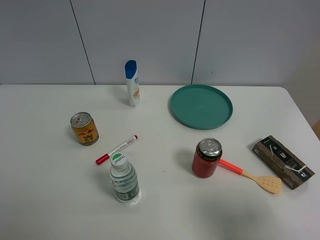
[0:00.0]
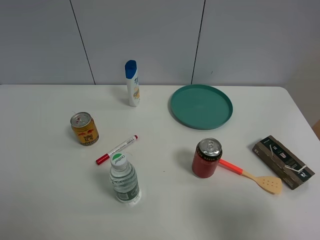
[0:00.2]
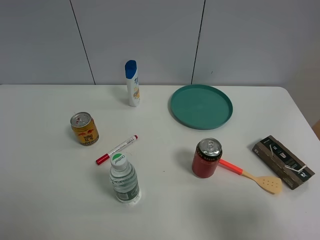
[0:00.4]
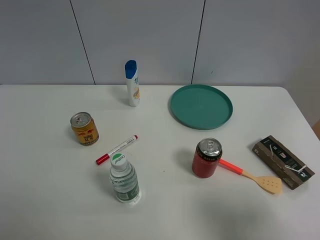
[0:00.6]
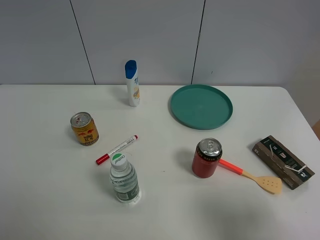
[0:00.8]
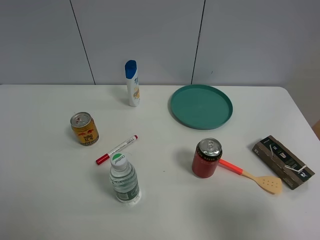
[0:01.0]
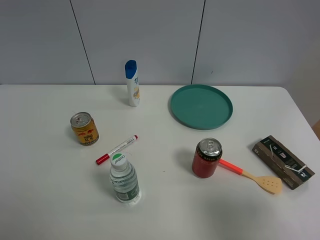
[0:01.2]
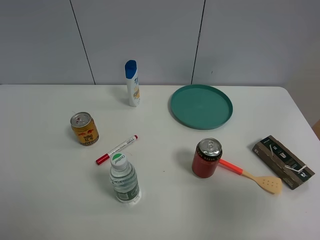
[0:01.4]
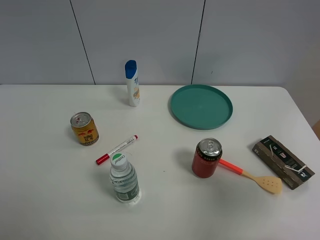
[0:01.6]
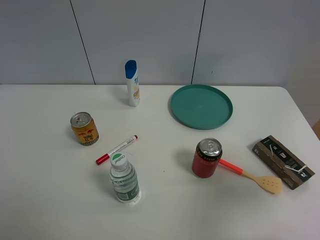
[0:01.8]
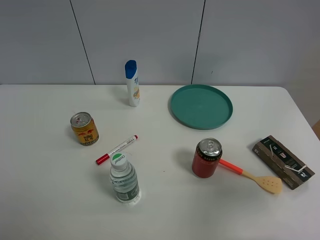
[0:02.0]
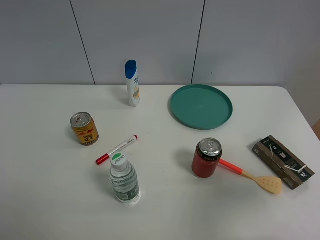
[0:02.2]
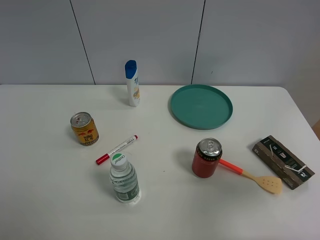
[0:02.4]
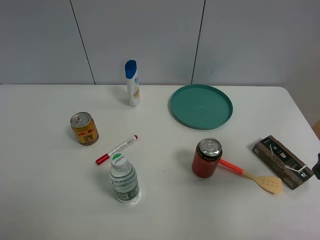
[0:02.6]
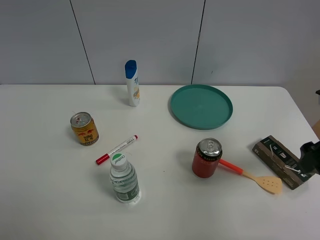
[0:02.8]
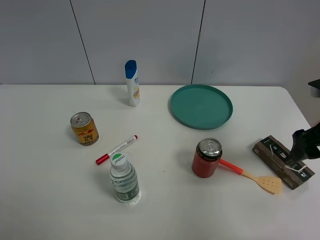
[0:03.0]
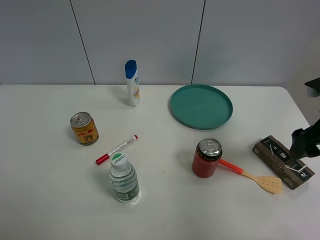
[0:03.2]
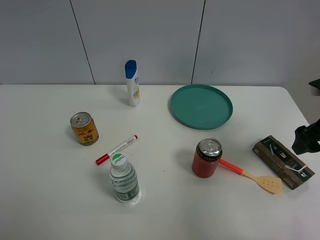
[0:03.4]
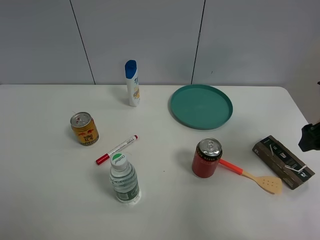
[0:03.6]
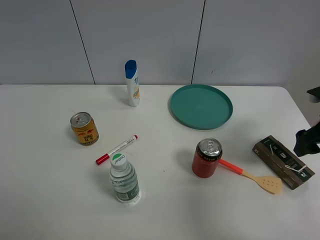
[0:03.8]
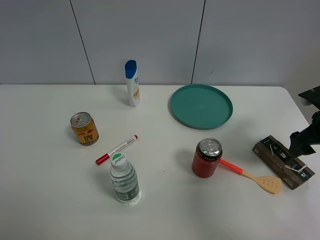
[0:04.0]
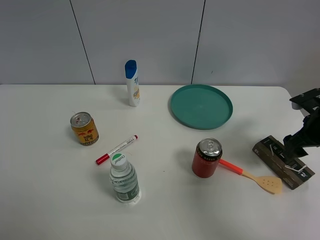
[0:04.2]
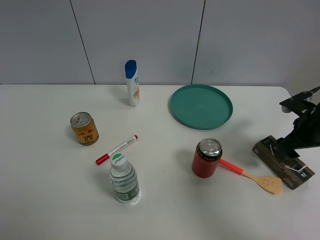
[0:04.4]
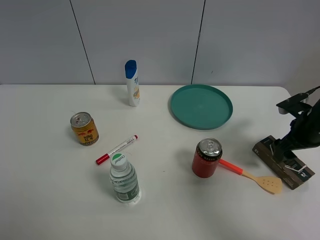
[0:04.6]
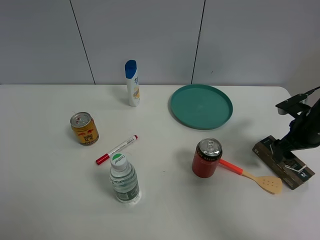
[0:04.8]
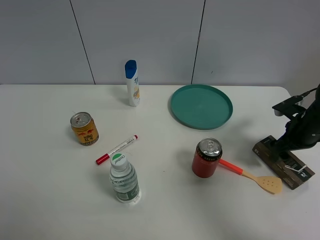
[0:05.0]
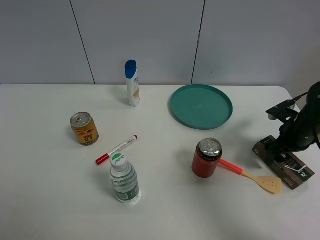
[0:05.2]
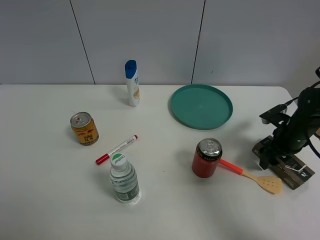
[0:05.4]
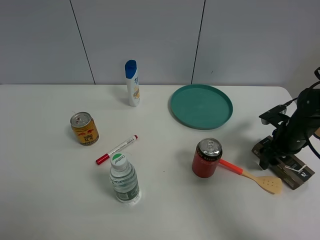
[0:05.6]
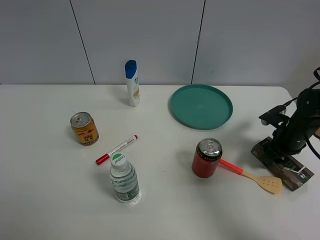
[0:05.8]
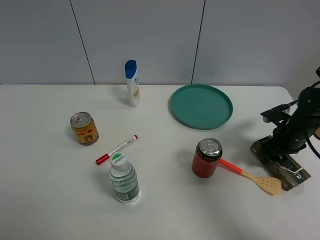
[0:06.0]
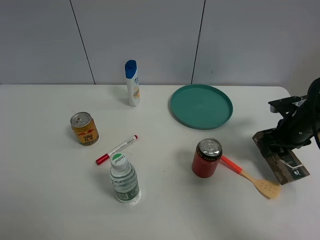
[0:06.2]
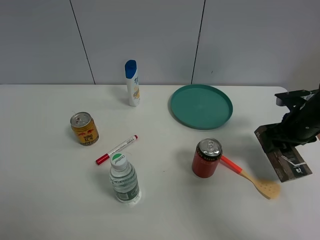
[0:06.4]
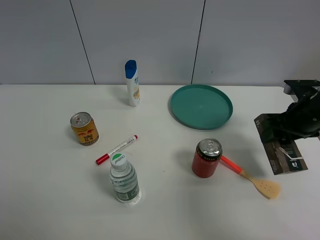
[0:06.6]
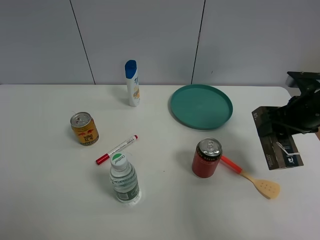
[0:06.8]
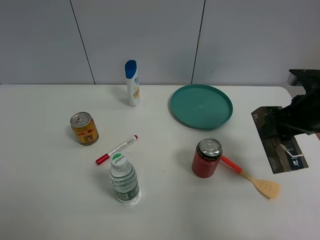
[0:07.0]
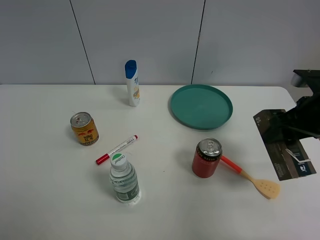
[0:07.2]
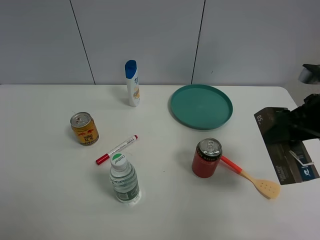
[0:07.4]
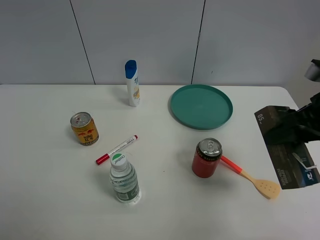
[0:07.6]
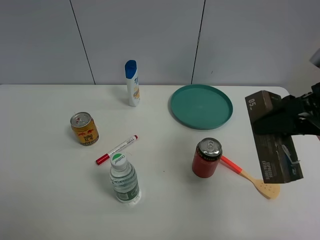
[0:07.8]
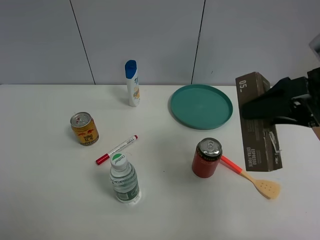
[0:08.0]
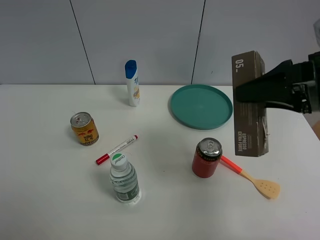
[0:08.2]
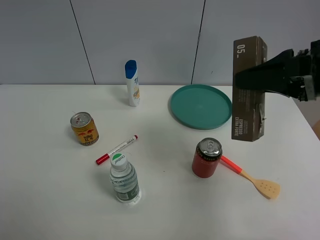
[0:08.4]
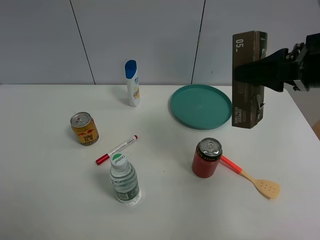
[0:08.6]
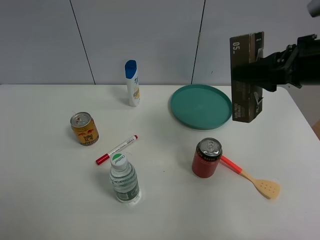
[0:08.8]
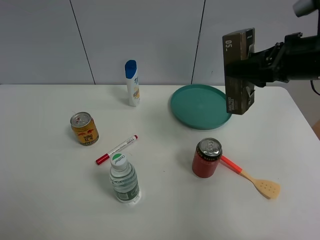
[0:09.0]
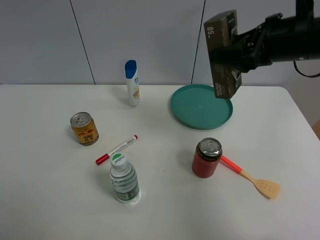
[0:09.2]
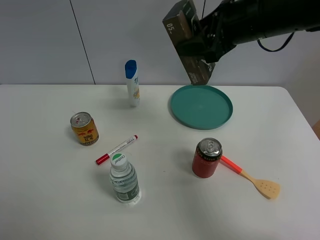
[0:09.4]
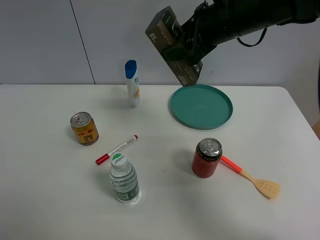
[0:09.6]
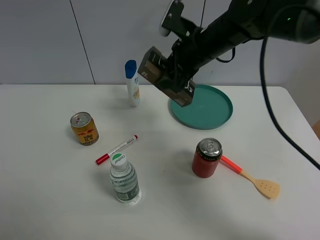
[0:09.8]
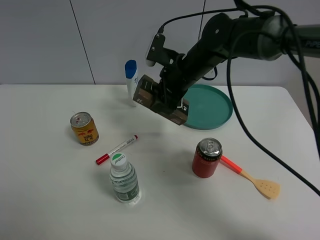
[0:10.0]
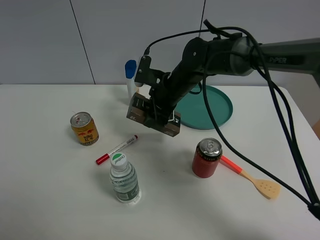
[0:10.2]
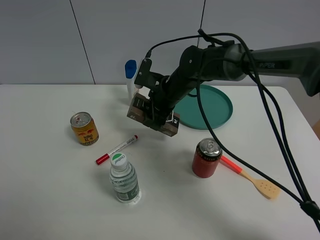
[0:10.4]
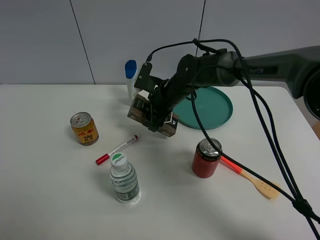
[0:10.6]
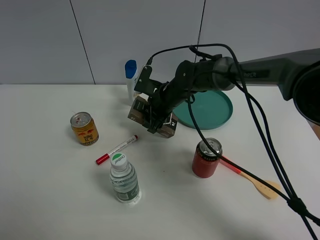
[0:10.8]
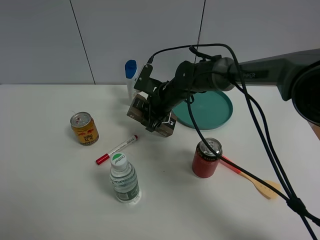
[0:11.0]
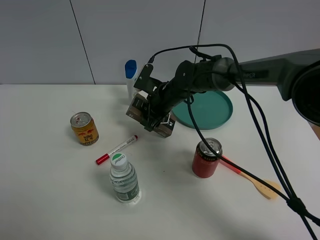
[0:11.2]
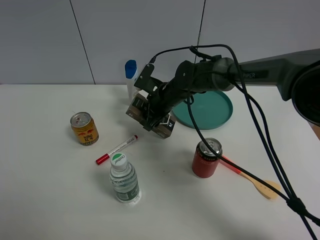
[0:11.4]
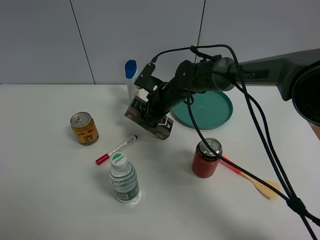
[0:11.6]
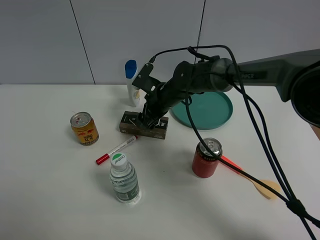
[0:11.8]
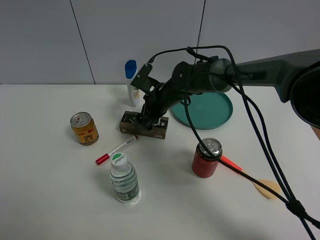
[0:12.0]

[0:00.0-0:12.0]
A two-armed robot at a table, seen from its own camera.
Task of the whole recording: the gripper move the object.
Step, 0:00.0 to 0:05.8: Grasp the brown box with the right gripper.
Step, 0:06.0 to 0:11.8: Place the brown box on the table with the right gripper.
0:00.0 to 0:01.6: The right gripper moves forward and upward, approximately 10 cm.
0:01.6 to 0:03.0: The right gripper moves forward and downward, approximately 15 cm.
0:03.0 to 0:04.4: The right gripper shifts some 10 cm downward and forward.
0:04.4 to 0:06.0: The right gripper ends up about 5 cm from where it was, and closes up.
0:06.0 to 0:07.6: The right gripper moves upward and backward, approximately 20 cm.
0:07.6 to 0:09.0: The right gripper is displaced forward by roughly 10 cm.
0:09.0 to 0:10.4: The right gripper shifts some 30 cm to the left, downward and forward.
0:10.4 to 0:12.0: The right gripper opens its fingers.

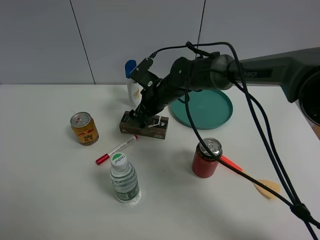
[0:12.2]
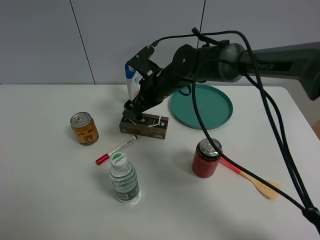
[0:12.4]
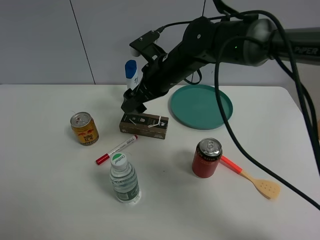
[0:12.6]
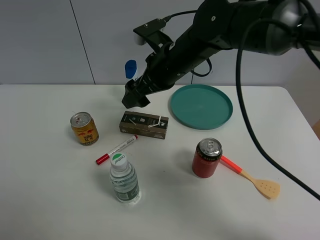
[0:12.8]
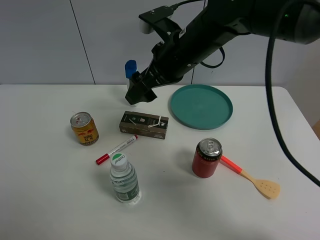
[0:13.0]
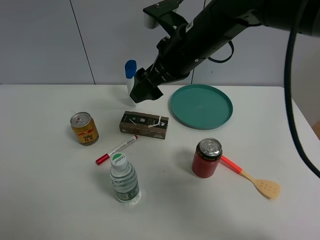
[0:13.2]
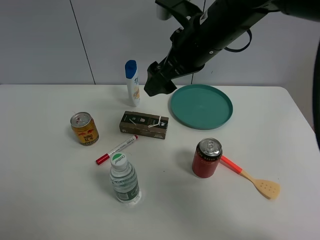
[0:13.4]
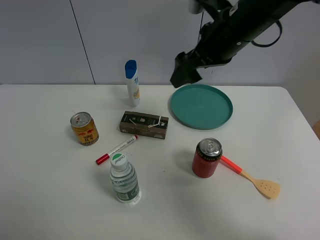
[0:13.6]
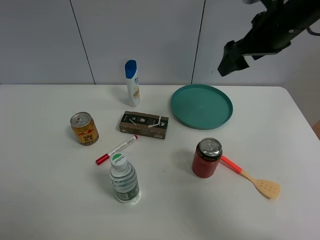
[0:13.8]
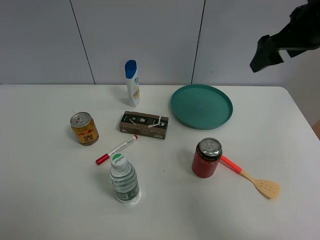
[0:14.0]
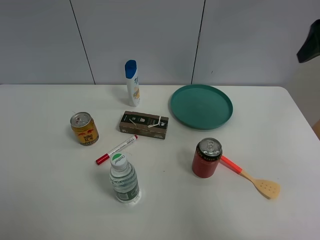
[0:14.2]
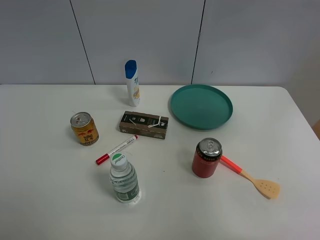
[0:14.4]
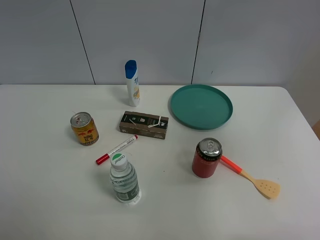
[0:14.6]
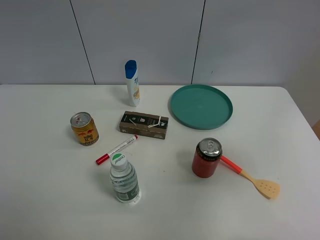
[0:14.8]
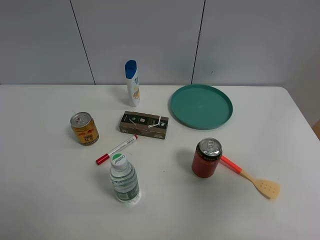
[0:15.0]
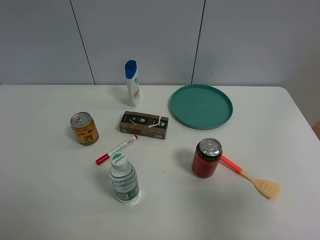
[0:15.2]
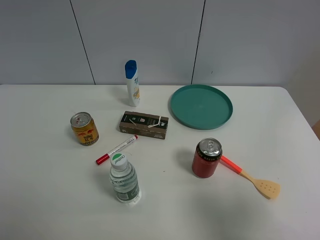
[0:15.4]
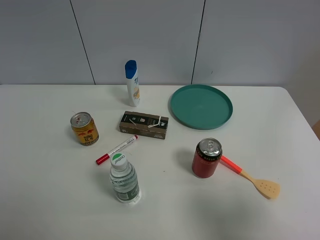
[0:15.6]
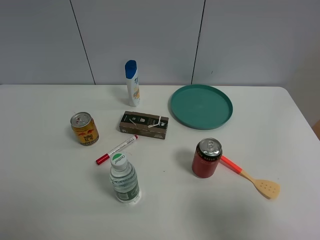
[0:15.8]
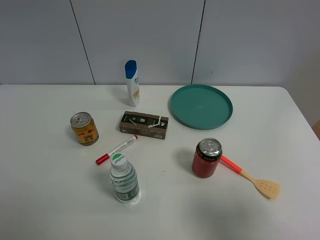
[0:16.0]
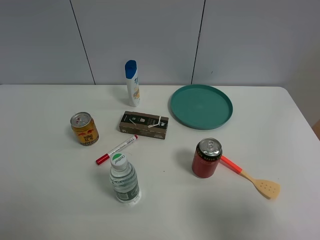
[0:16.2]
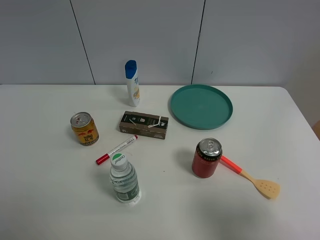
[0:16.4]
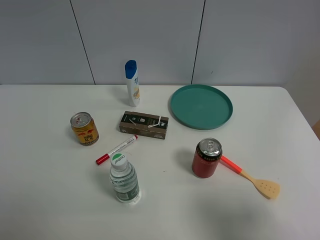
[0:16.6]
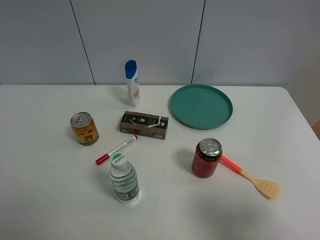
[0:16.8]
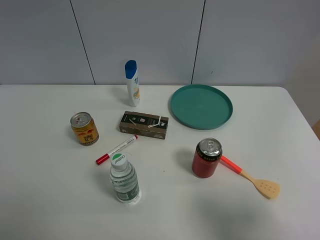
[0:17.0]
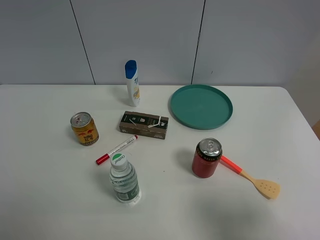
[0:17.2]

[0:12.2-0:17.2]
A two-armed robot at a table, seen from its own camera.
Task of the whole recording: the gripper move the object.
0:12.2 to 0:13.8: The right gripper heads to the right and upward, covering approximately 30 cm.
0:13.8 to 0:15.6: The right gripper shifts approximately 30 cm backward.
0:15.6 to 0:17.2: Neither gripper changes place.

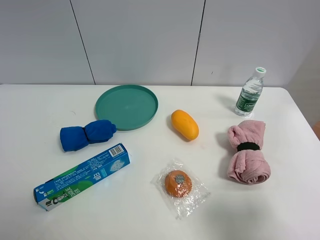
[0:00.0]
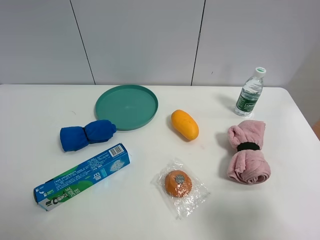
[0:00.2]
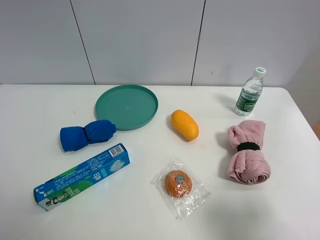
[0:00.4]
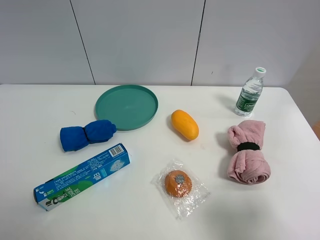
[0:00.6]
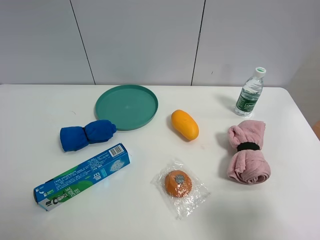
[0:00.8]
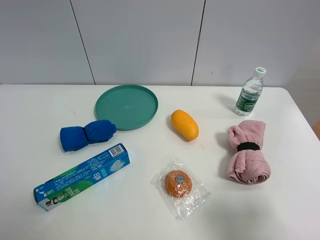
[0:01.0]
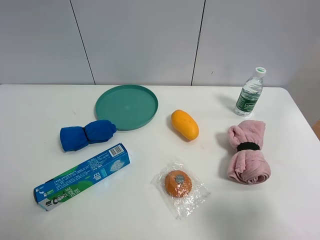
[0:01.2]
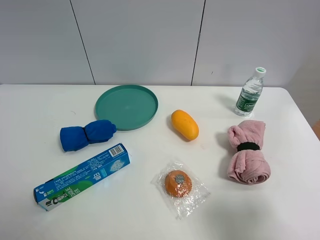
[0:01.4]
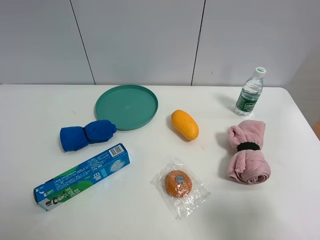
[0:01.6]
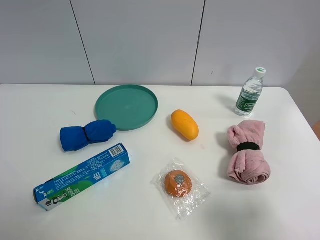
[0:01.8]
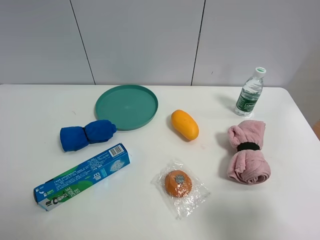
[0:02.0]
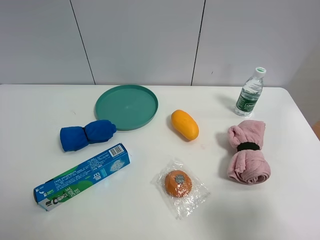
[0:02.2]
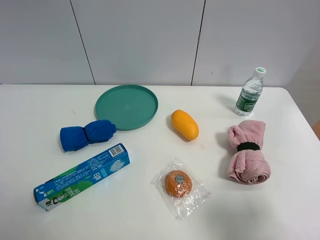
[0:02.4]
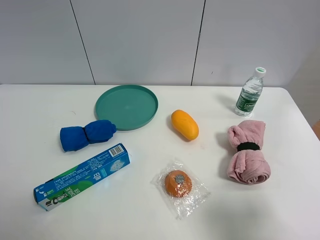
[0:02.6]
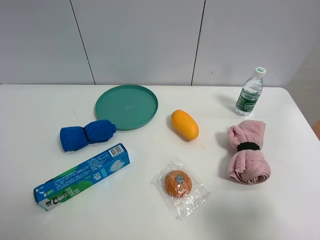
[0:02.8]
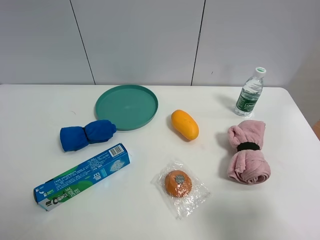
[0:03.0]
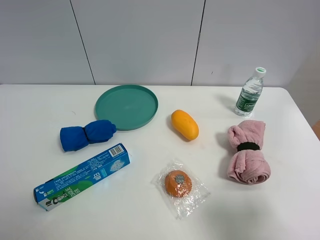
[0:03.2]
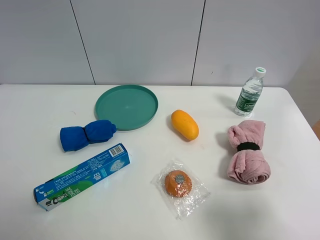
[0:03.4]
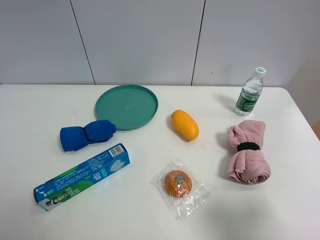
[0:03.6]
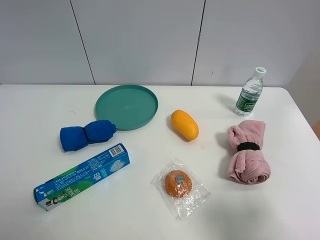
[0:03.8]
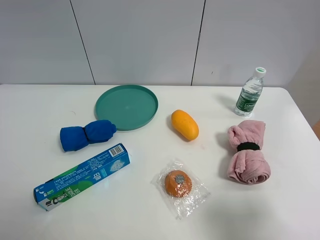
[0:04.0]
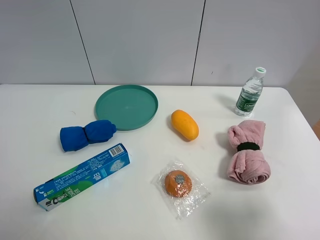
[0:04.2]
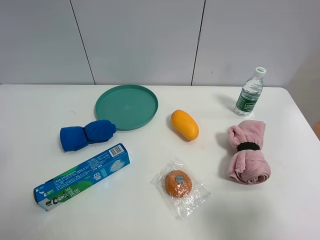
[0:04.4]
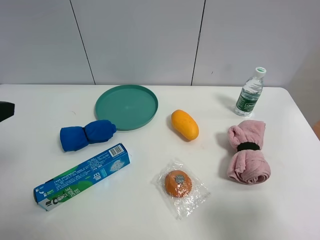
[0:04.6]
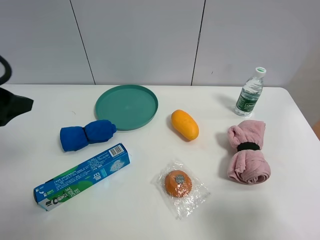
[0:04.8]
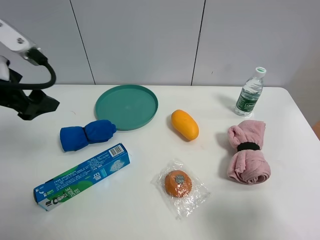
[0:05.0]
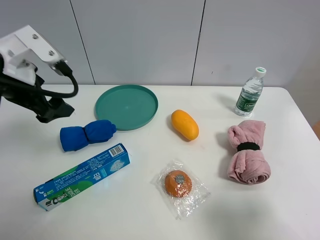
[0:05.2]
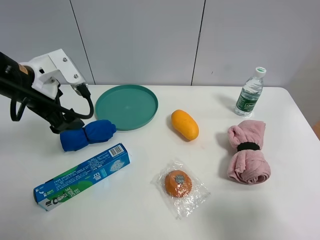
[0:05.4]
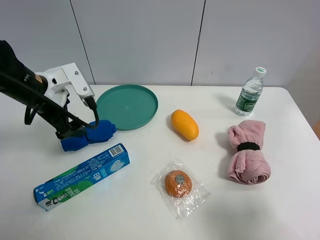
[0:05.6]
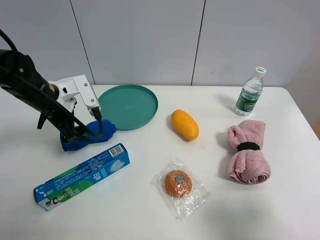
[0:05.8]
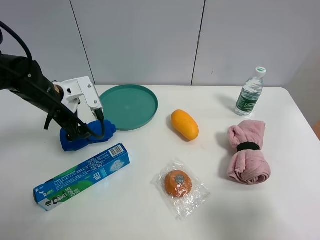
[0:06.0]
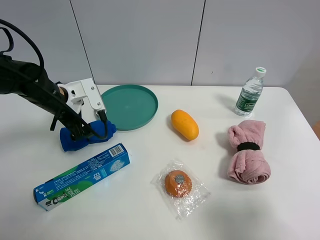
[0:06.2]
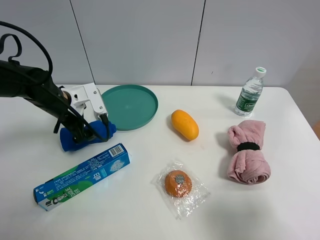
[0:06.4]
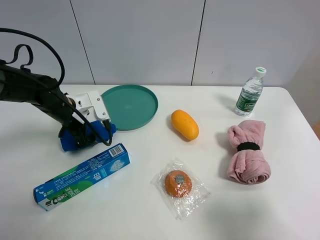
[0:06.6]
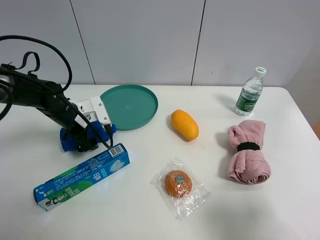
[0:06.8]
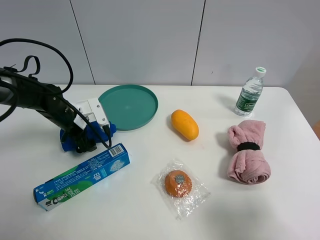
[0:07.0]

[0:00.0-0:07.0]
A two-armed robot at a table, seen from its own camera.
Task of the whole recording: the gripper move the object.
0:00.0 to 0:02.8: Both grippers stay put.
0:04.2 to 0:05.6: The left gripper is displaced forward, downward and to the right by some 25 cm.
0:05.6 to 0:07.0: The left gripper goes roughly 15 cm downward and forward.
